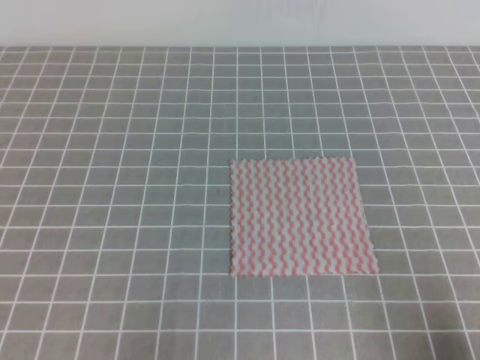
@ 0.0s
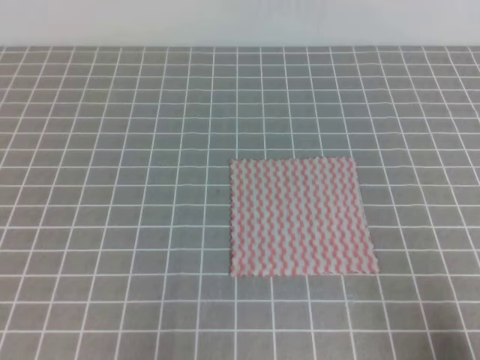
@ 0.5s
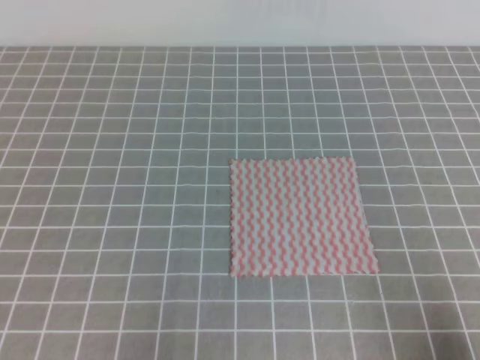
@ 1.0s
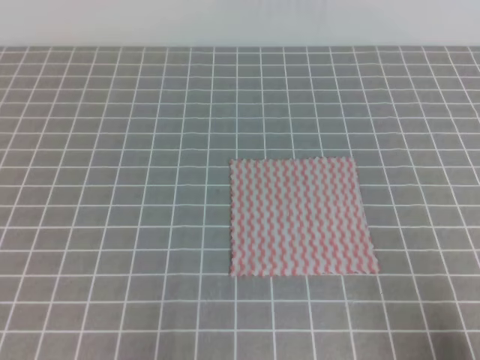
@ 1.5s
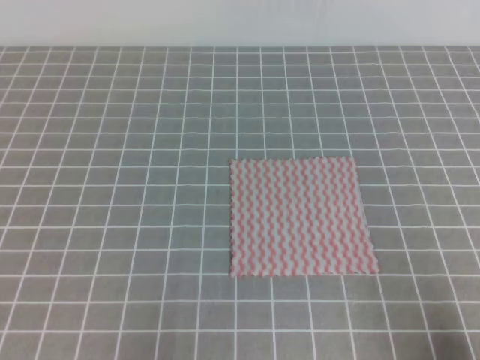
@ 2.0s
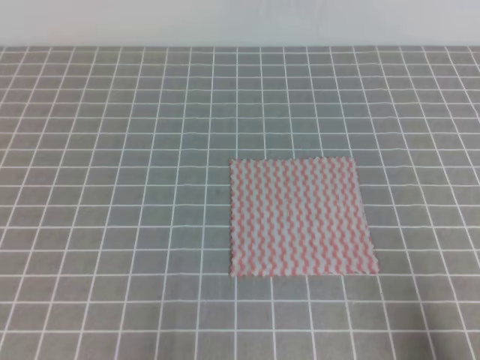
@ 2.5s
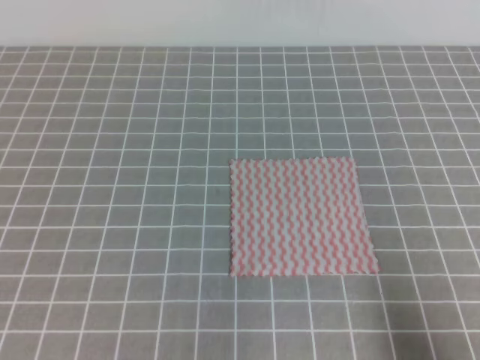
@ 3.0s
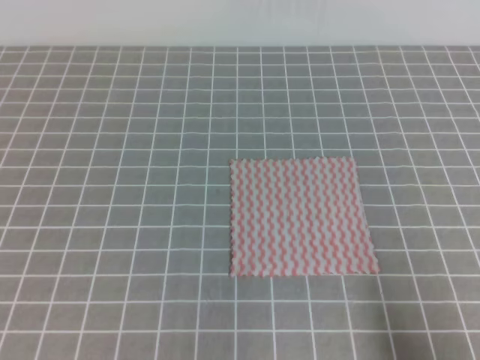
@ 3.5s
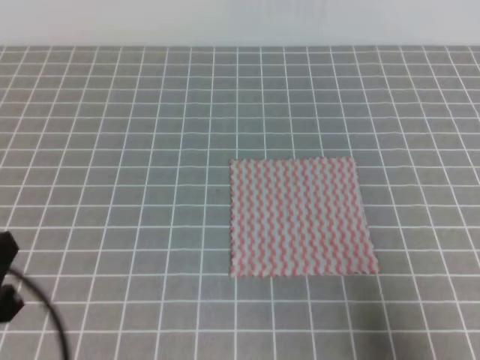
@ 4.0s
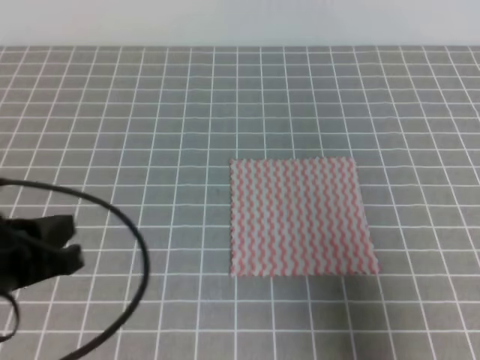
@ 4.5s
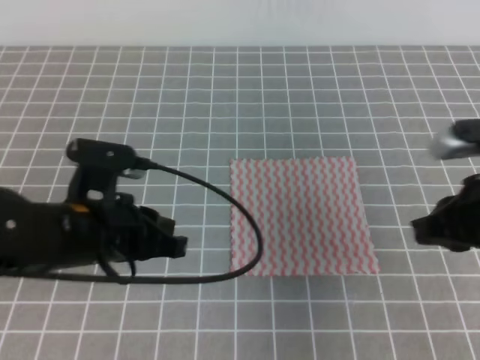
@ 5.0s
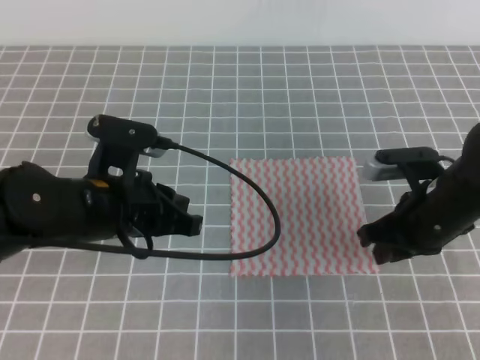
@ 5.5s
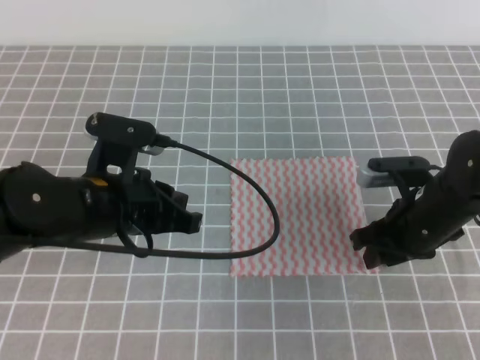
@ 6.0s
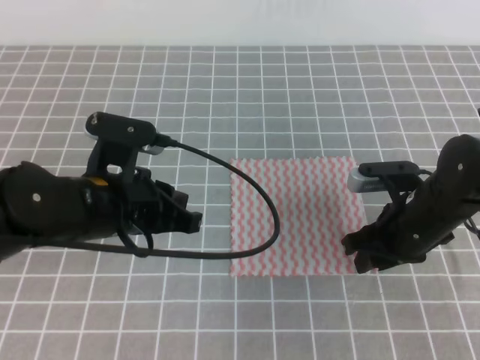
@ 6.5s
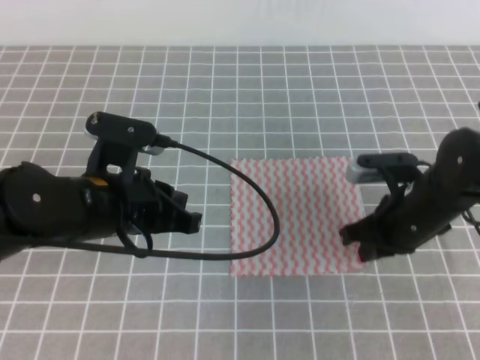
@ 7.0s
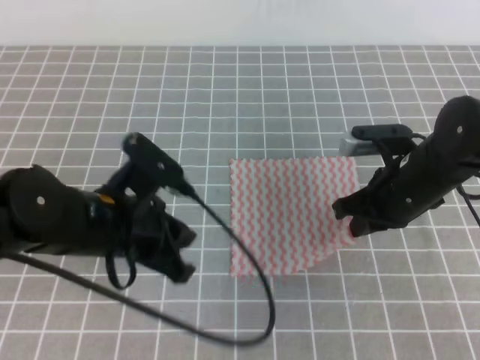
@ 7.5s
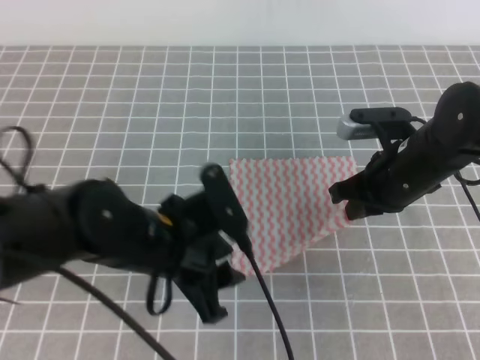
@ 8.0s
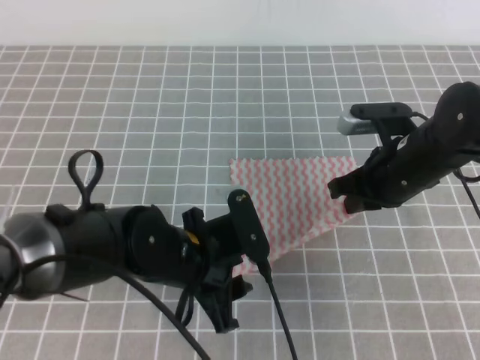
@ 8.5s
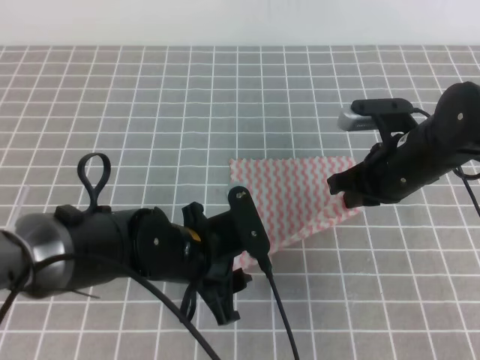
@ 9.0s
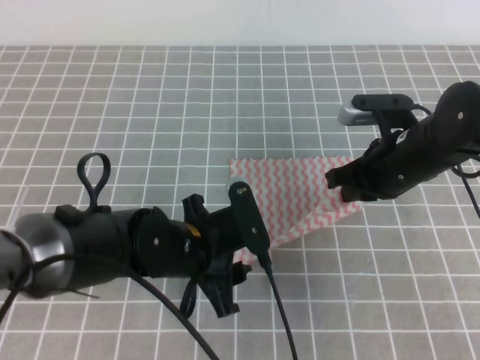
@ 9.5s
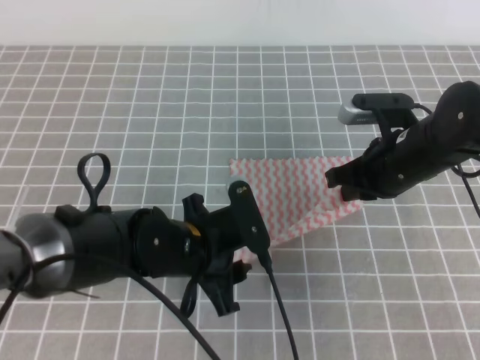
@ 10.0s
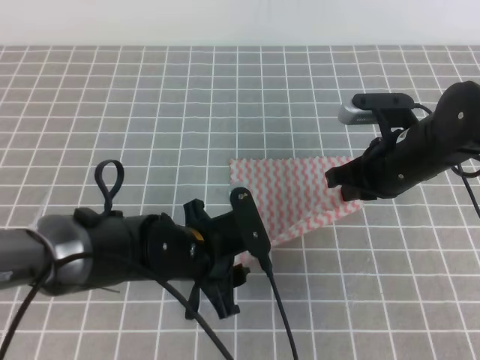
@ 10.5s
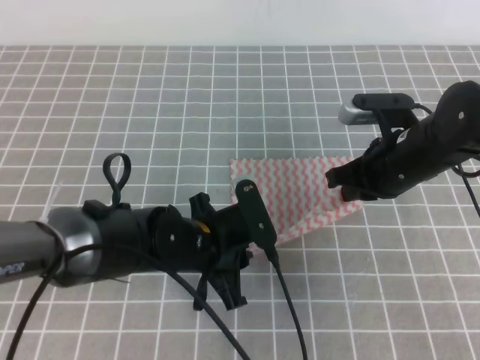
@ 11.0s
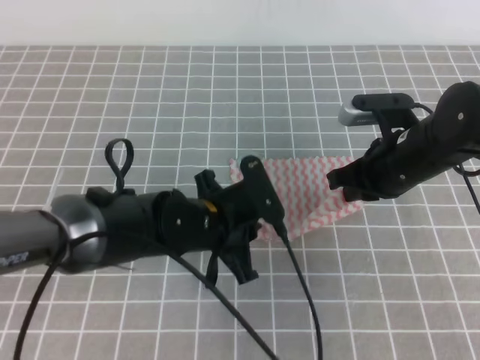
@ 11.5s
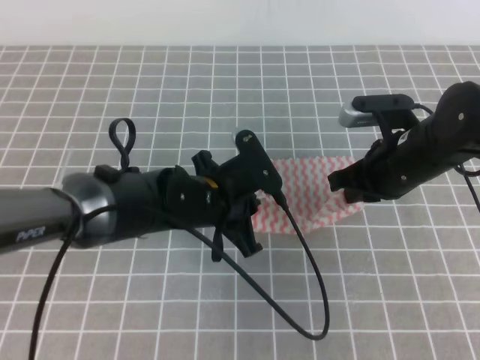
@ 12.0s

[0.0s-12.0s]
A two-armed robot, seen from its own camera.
0.0s to 2.0s: Both grippers stay put.
2.0s to 4.0s: The left gripper heads upward, covering approximately 10 cm. The right gripper ends up approximately 5 cm from where it was.
4.0s to 6.0s: The right gripper heads forward, covering some 25 cm, and opens up, while the left gripper heads forward and to the right, covering roughly 20 cm.
6.0s to 8.0s: The right gripper shifts by some 5 cm, and closes up. Meanwhile the left gripper shifts by approximately 5 cm, and opens its fingers.
8.0s to 10.0s: The left gripper changes place by some 5 cm.
10.0s to 12.0s: The left gripper goes some 5 cm forward, and closes up.

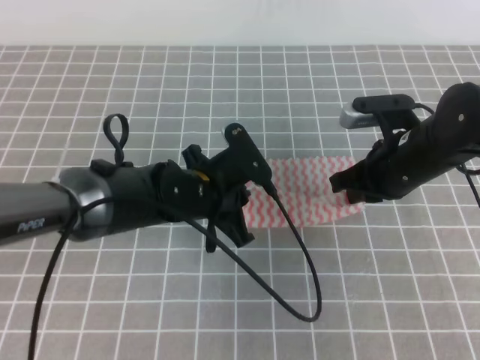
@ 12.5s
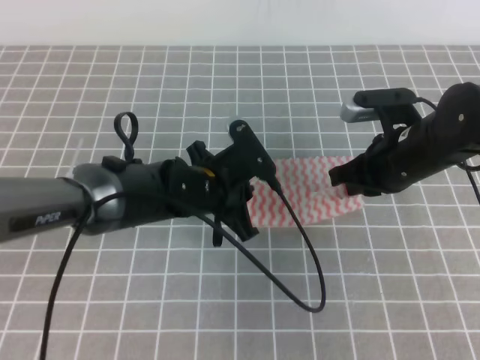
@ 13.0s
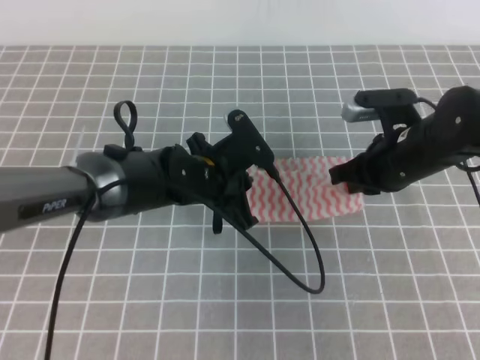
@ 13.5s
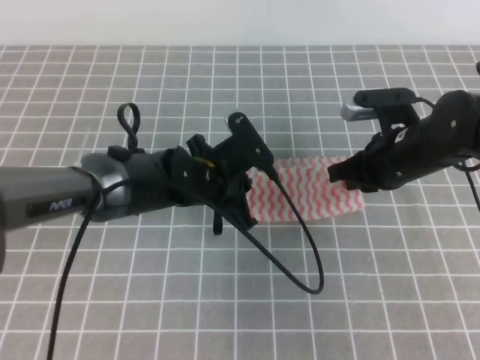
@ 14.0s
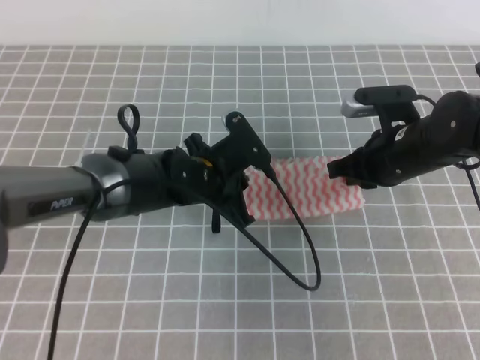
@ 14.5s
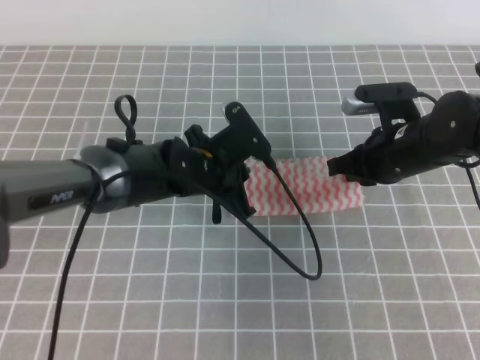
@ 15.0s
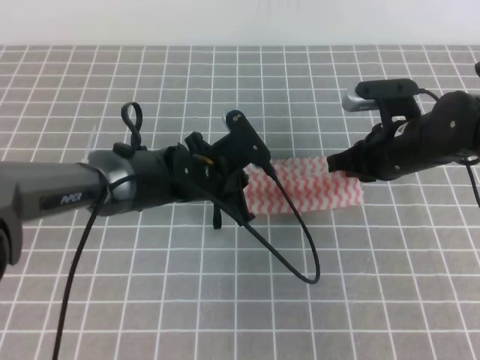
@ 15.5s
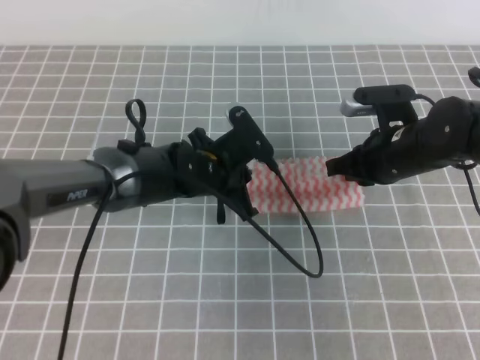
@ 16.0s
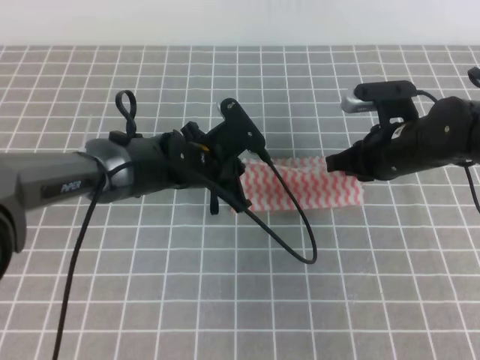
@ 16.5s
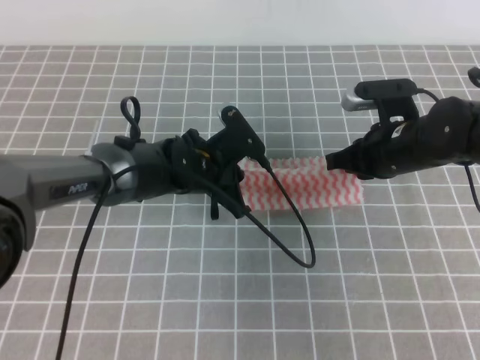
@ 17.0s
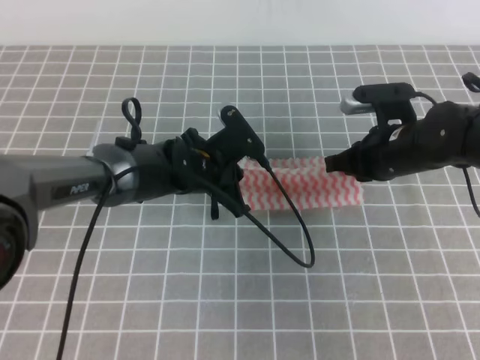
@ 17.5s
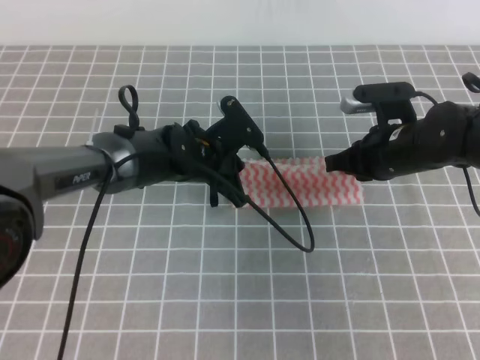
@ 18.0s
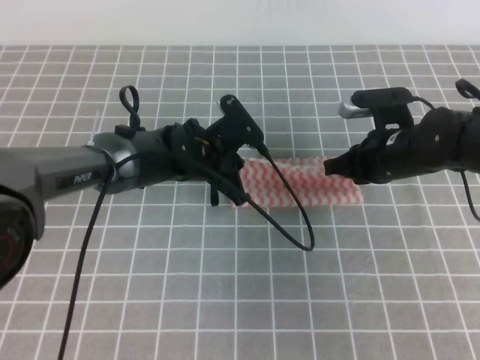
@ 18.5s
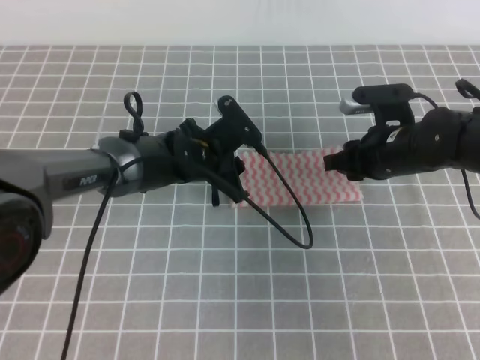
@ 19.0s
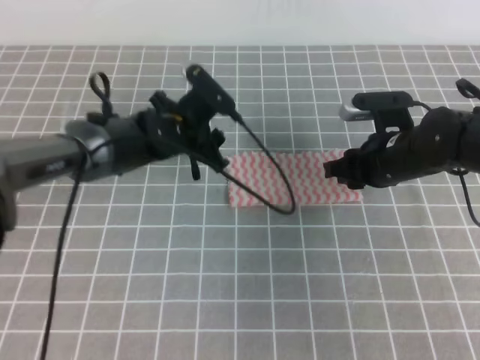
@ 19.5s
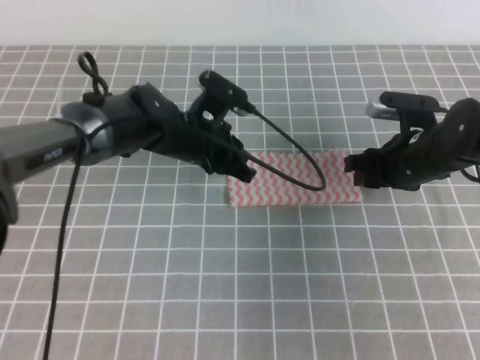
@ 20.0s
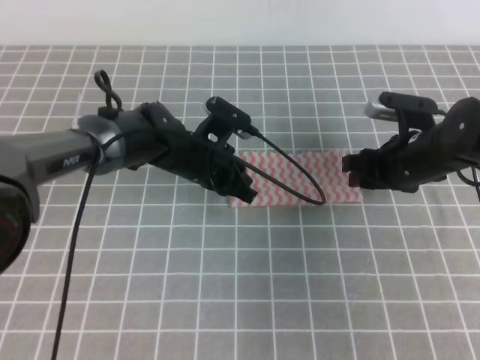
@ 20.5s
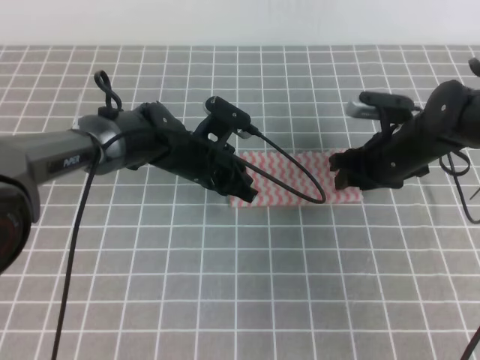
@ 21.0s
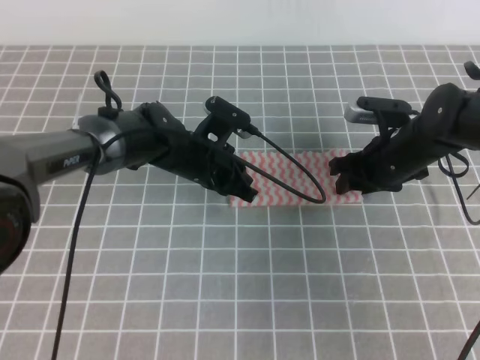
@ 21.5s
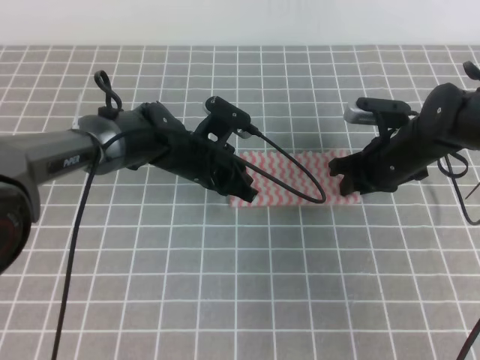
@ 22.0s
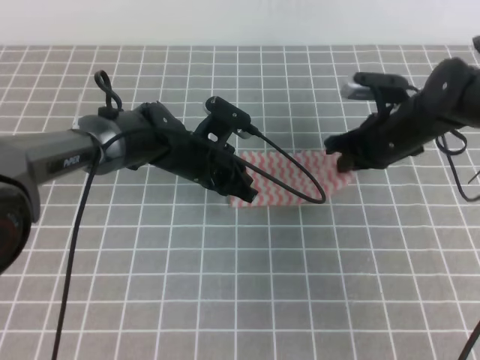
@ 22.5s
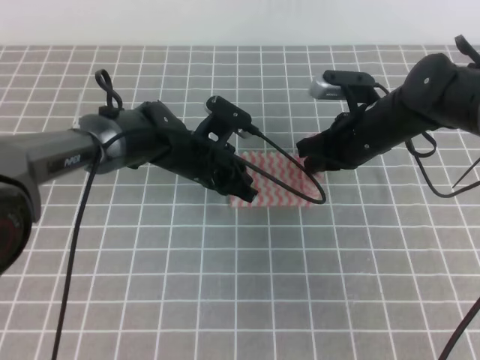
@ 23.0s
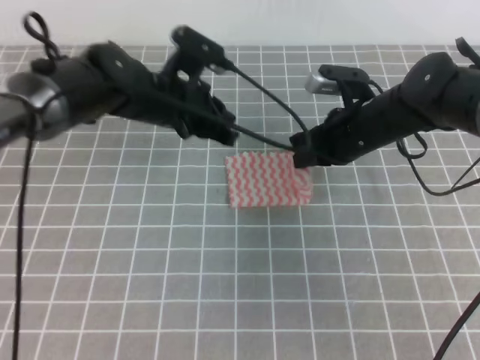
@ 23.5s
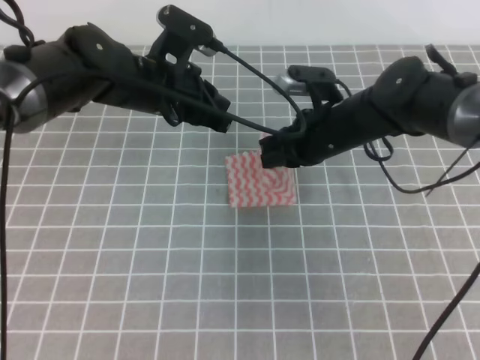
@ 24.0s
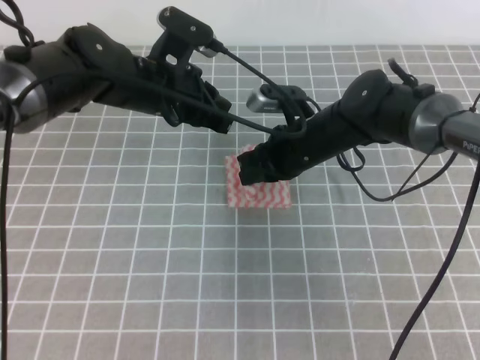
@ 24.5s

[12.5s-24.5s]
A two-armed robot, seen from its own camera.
12.5s to 14.5s: The grippers stay close to where they were, moving slightly.
14.5s to 18.5s: The grippers stay close to where they were, moving slightly.
18.5s to 20.5s: The left gripper opens, then closes once more. The right gripper opens its fingers.
20.5s to 22.5s: The right gripper closes up.
22.5s to 24.5s: The left gripper shifts some 10 cm upward. The right gripper is displaced to the left by roughly 10 cm.

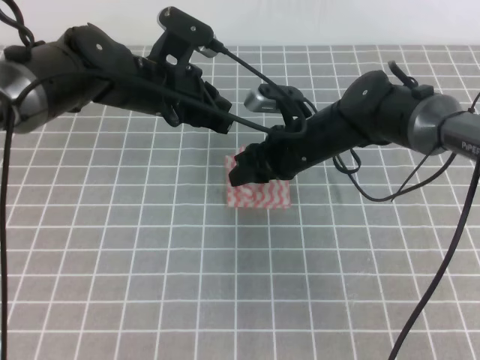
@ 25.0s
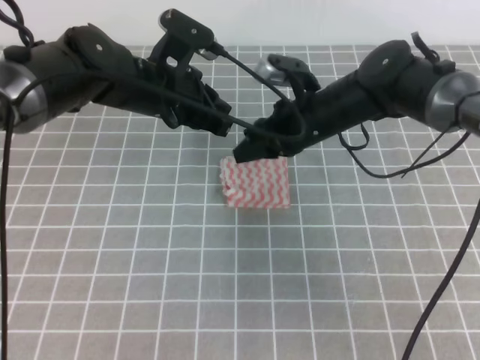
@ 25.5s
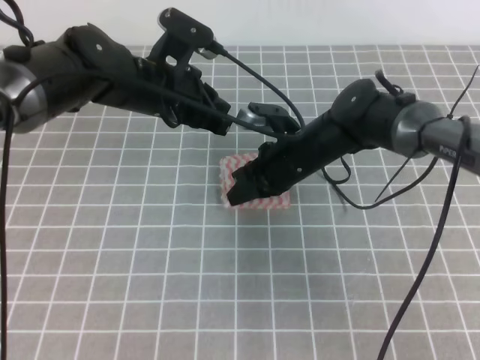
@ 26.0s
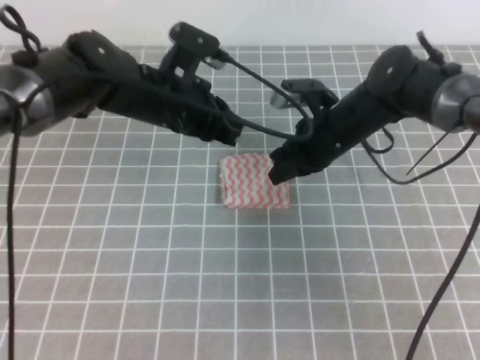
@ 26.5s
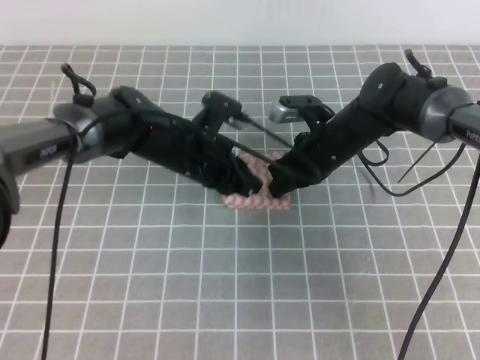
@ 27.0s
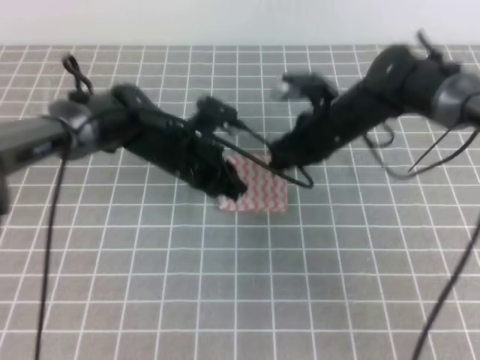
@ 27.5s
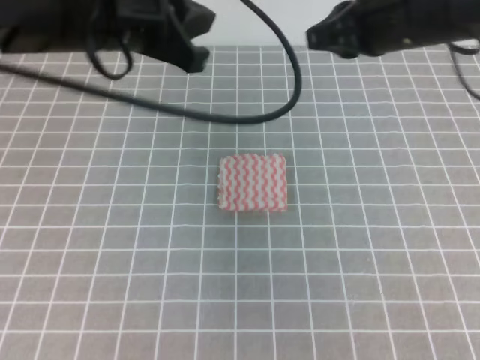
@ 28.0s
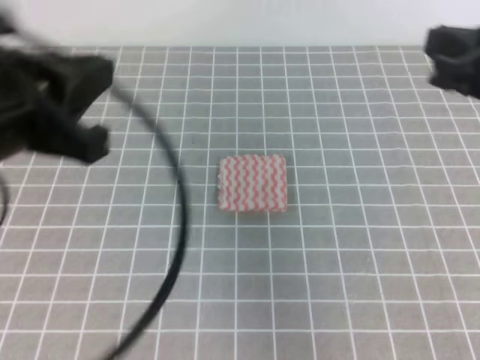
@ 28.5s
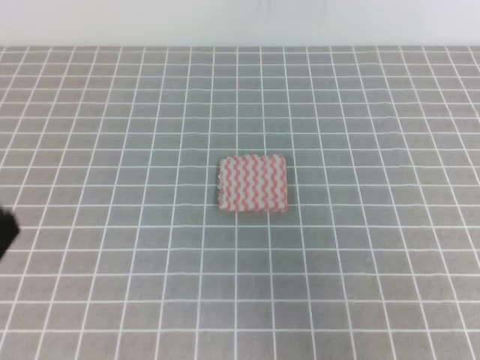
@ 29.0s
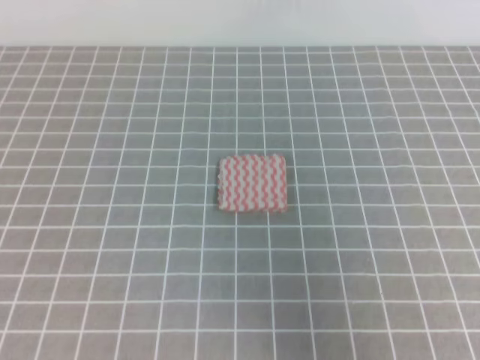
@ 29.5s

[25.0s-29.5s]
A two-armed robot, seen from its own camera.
25.0s to 27.0s: The left gripper shifts about 10 cm downward, while the right gripper changes place by roughly 5 cm, and closes up.
27.0s to 29.5s: The left gripper shifts about 40 cm backward and to the left, while the right gripper goes roughly 40 cm backward, upward and to the right.
